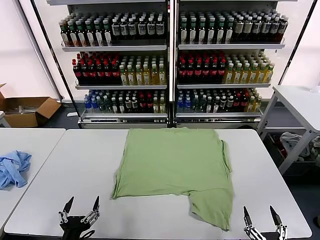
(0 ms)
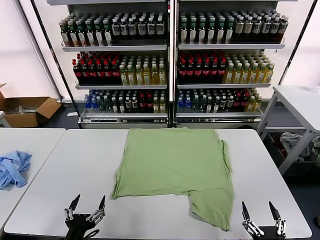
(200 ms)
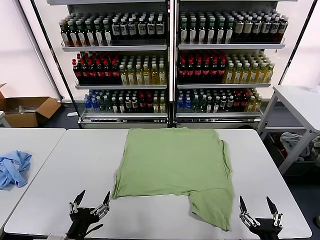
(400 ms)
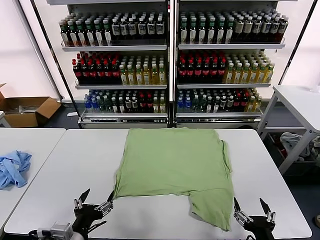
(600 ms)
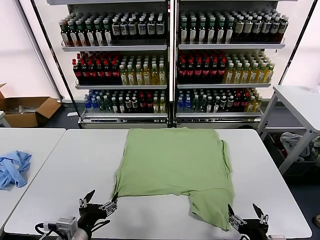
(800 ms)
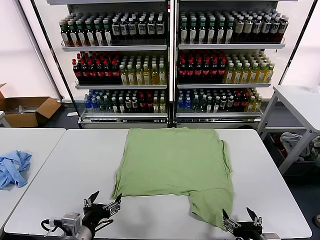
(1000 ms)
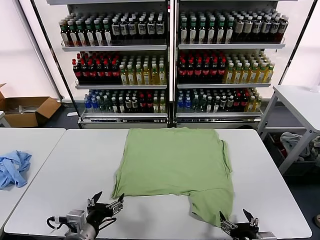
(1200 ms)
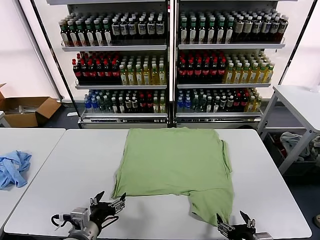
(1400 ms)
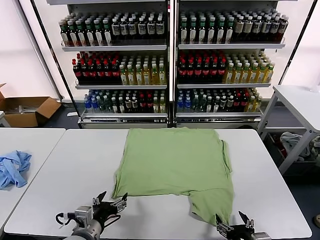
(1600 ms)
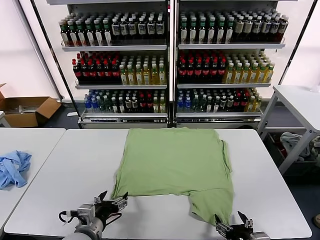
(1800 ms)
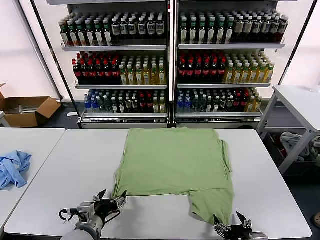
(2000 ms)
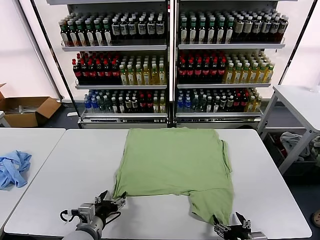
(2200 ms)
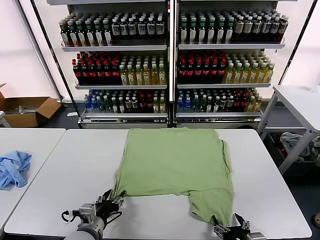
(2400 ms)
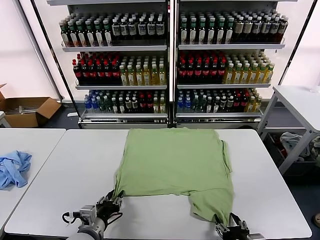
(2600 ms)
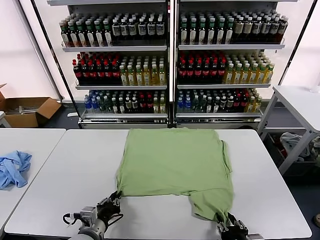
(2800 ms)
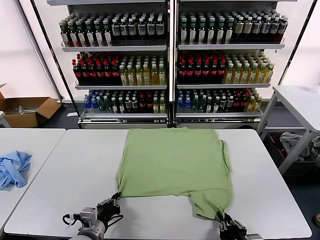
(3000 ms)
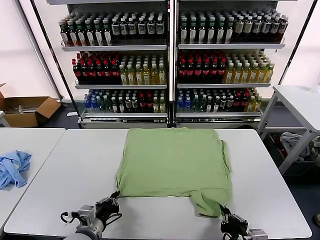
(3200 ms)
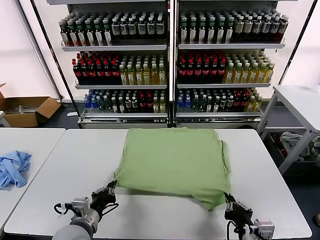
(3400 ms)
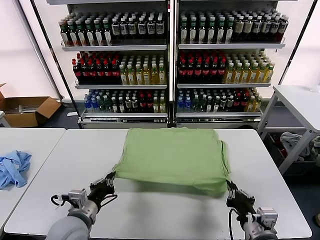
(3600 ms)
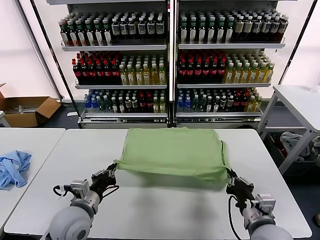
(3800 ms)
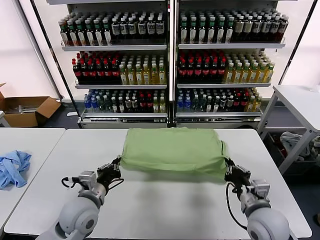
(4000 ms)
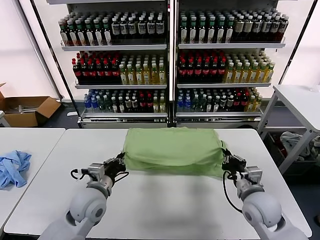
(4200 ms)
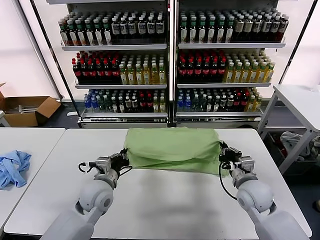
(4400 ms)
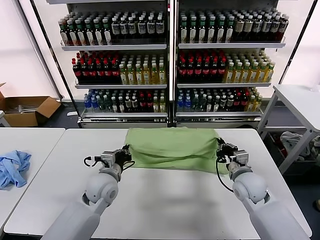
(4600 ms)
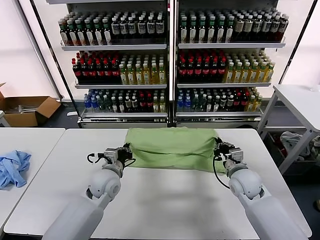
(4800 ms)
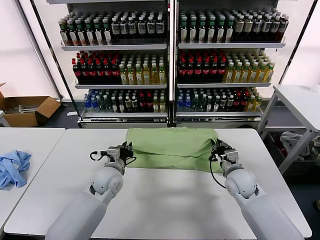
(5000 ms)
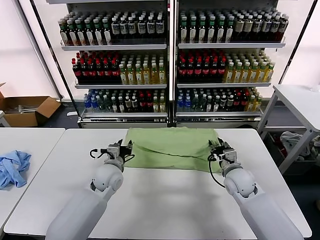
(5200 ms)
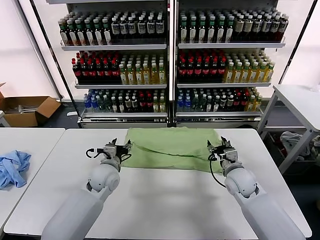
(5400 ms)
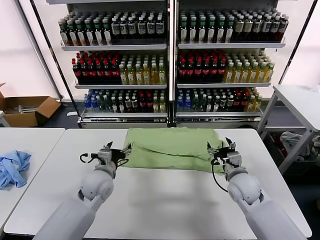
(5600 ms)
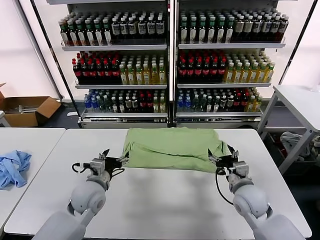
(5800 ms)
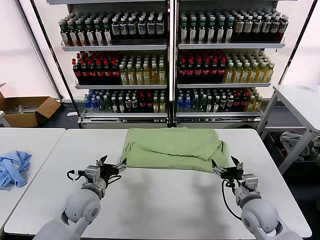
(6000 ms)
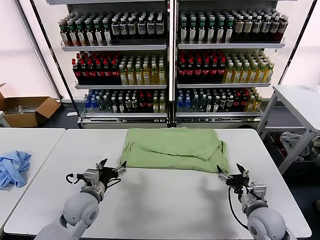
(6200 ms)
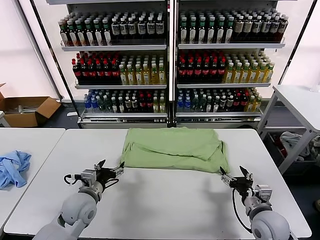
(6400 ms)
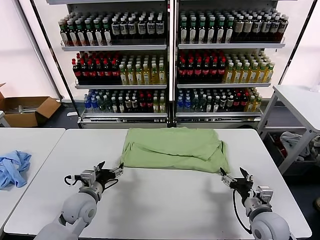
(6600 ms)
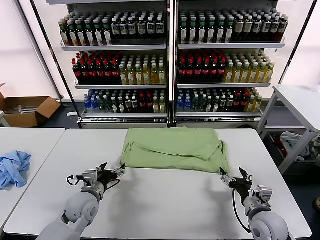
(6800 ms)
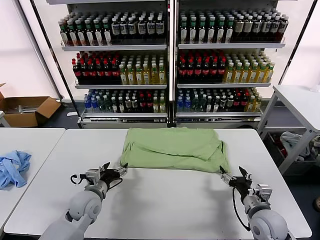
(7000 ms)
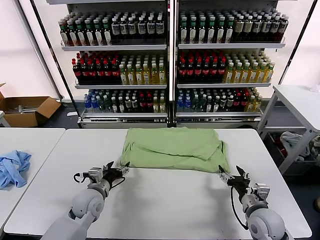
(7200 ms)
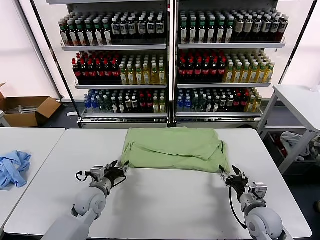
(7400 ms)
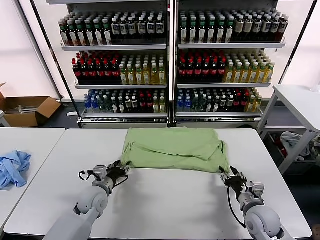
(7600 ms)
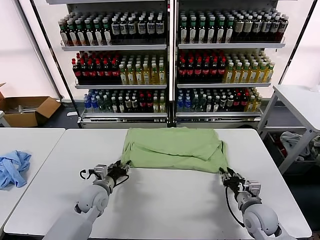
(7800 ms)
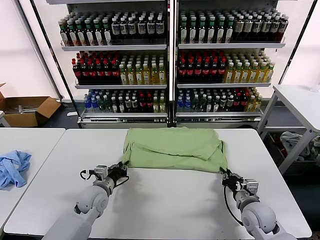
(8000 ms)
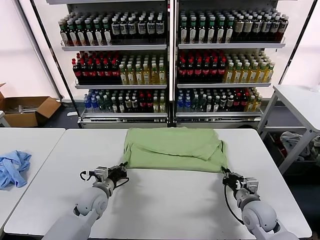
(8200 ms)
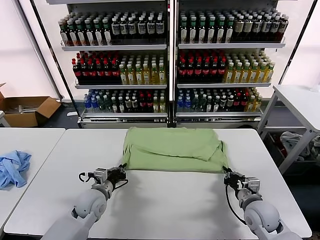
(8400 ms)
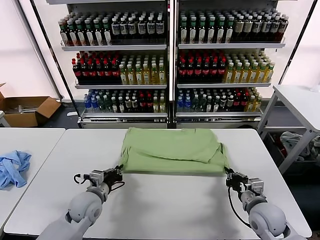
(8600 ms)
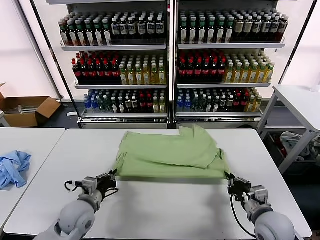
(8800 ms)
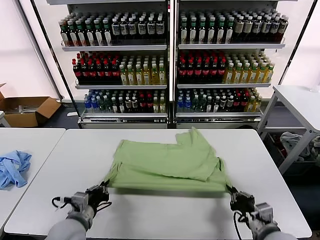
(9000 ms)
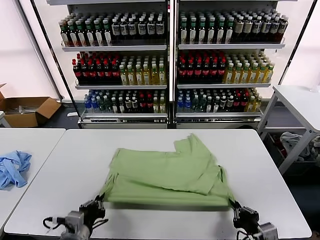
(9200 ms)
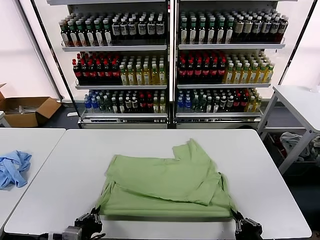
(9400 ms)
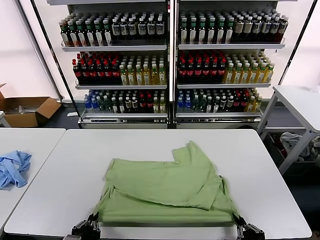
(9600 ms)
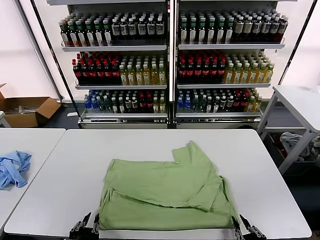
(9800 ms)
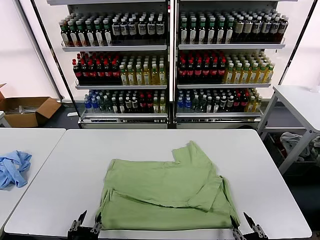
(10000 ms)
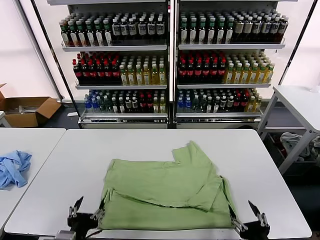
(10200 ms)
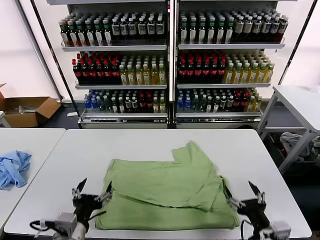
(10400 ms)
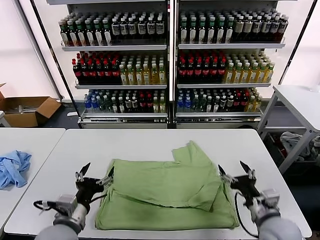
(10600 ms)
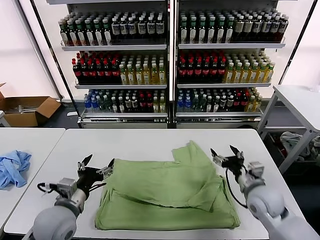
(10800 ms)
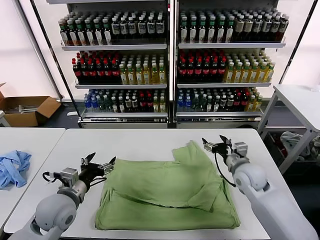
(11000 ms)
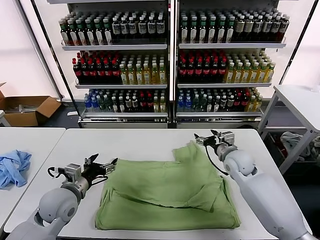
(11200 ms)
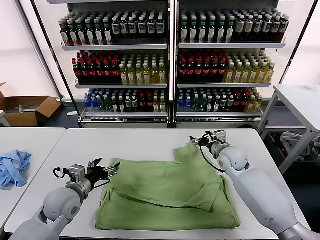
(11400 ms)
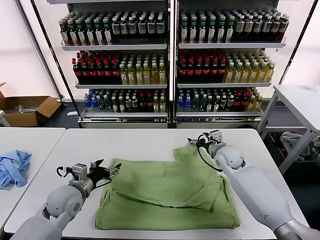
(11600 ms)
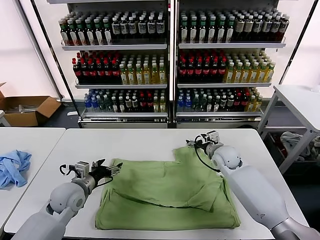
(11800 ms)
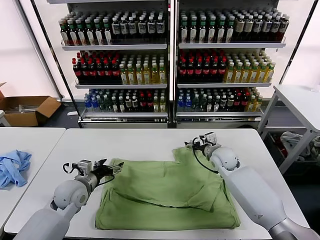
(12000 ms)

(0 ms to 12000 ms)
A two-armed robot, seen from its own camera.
Task of the whole recording: fold and organize the clothes.
Step, 0 ms - 3000 ms: use both grippers simultaneously to clamp the lower edge of the clothing fabric.
Step, 3200 ms - 5200 ms: use both grippers to drag the lower edge of the fabric forward and fold it over the upper edge.
Step, 5400 ms - 9600 ms: Drag the clothes downward with both gripper.
1600 ms - 3000 ms: The left gripper closes its fingers; the right gripper closes up.
3000 ms - 4400 ms: The left gripper is displaced forward and upward by roughly 15 cm. Meanwhile the right gripper moves forward, some 25 cm.
4400 ms - 6000 ms: The left gripper travels forward and back again, about 5 cm each way, and opens its fingers, while the right gripper moves backward, roughly 10 cm, and opens its fingers.
6000 ms - 7600 ms: The right gripper closes up. The left gripper is displaced downward by approximately 5 cm, and closes.
7600 ms - 9000 ms: The two grippers go about 15 cm backward. The left gripper closes. Meanwhile the right gripper closes its fingers.
9000 ms - 10400 ms: The left gripper heads backward and upward, covering about 10 cm, and opens up, while the right gripper travels backward and back again, approximately 10 cm each way, and opens its fingers.
10400 ms - 12000 ms: Both grippers move forward, approximately 25 cm.

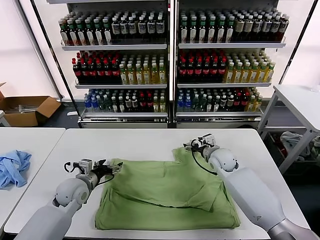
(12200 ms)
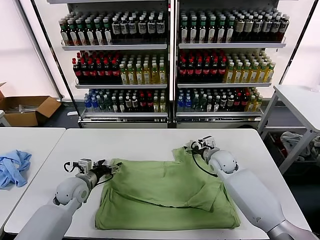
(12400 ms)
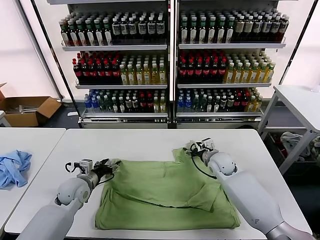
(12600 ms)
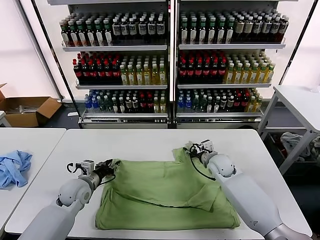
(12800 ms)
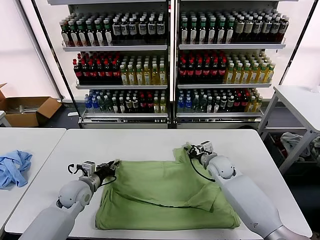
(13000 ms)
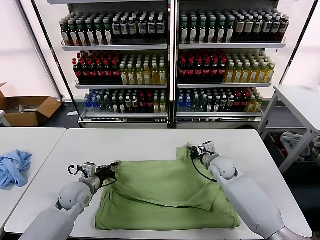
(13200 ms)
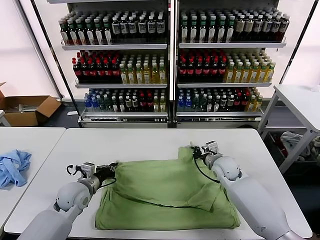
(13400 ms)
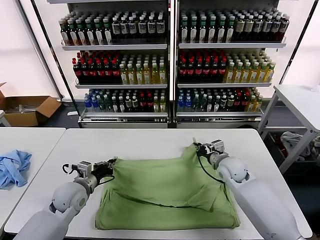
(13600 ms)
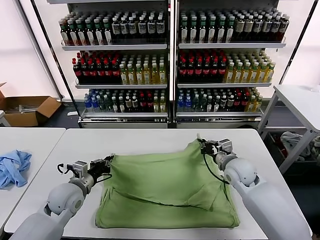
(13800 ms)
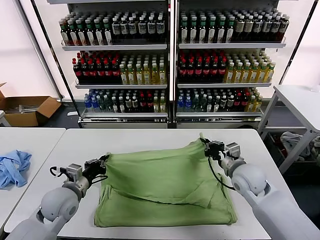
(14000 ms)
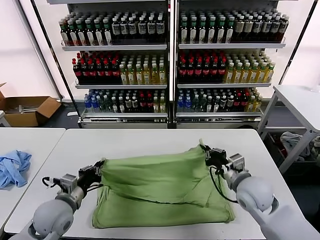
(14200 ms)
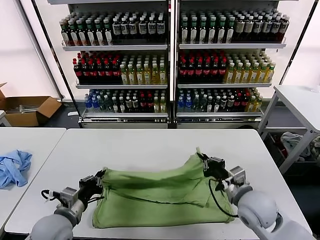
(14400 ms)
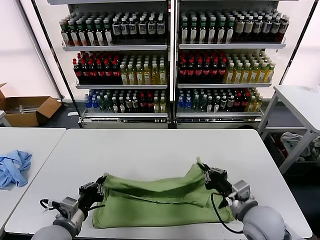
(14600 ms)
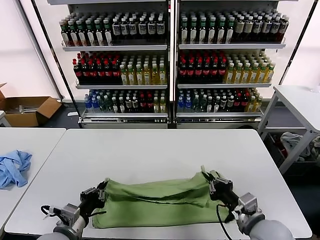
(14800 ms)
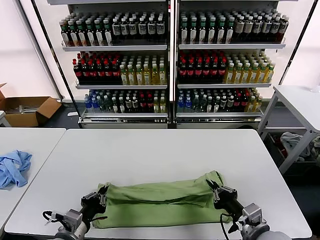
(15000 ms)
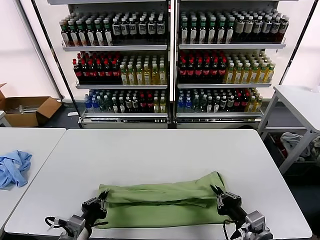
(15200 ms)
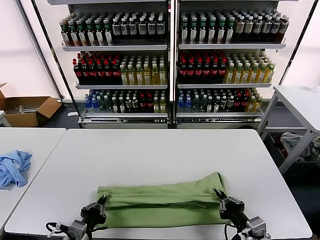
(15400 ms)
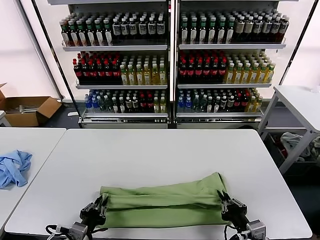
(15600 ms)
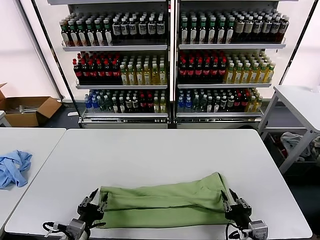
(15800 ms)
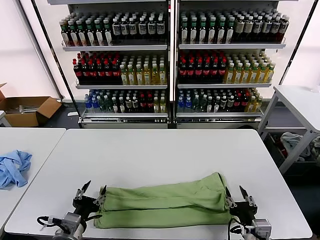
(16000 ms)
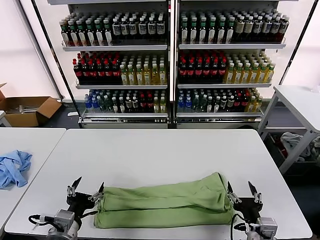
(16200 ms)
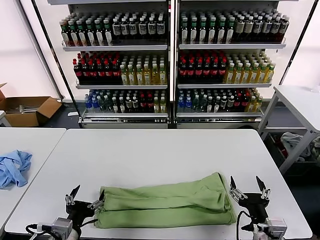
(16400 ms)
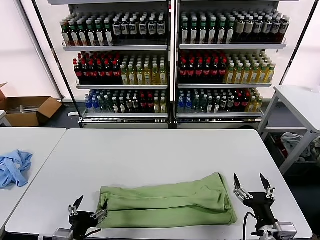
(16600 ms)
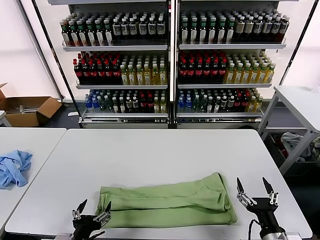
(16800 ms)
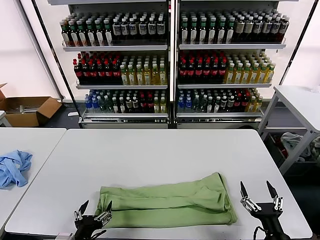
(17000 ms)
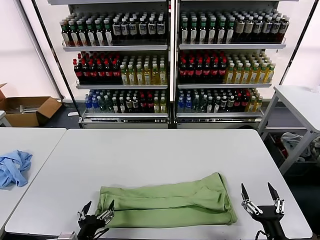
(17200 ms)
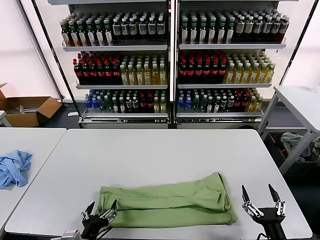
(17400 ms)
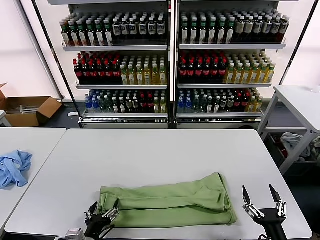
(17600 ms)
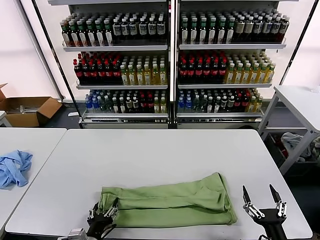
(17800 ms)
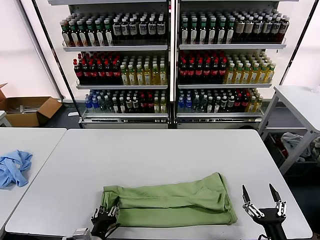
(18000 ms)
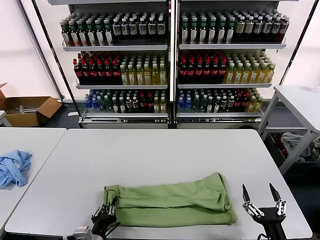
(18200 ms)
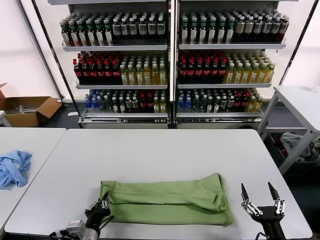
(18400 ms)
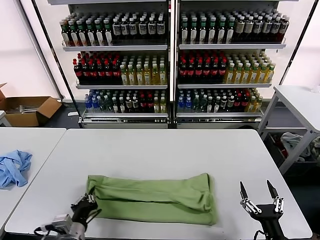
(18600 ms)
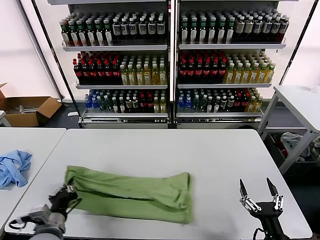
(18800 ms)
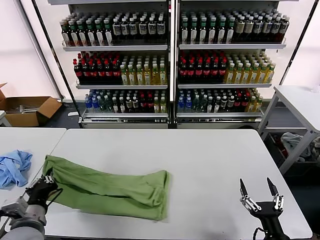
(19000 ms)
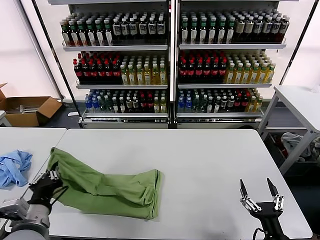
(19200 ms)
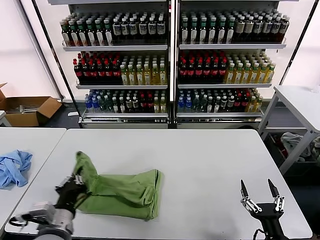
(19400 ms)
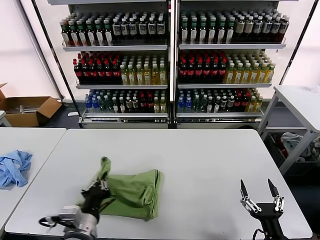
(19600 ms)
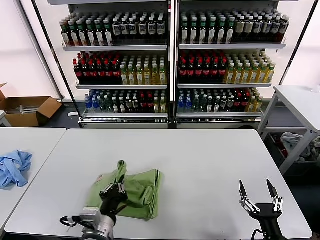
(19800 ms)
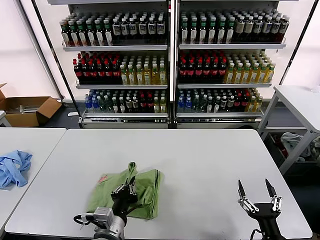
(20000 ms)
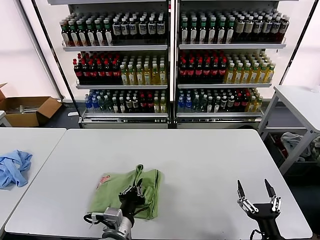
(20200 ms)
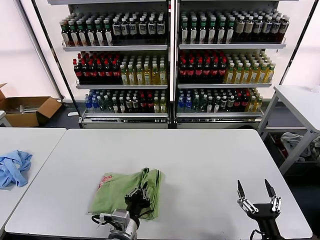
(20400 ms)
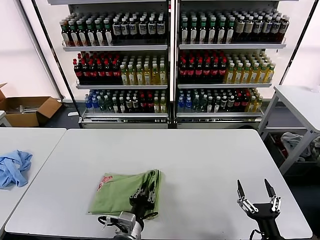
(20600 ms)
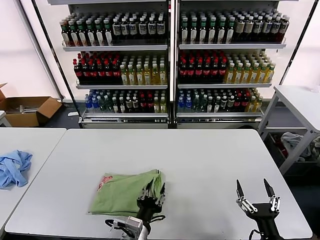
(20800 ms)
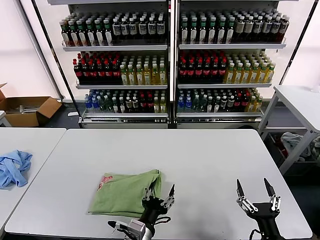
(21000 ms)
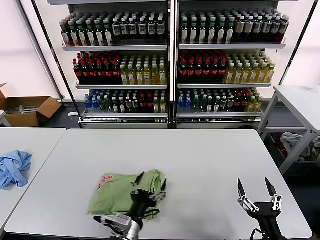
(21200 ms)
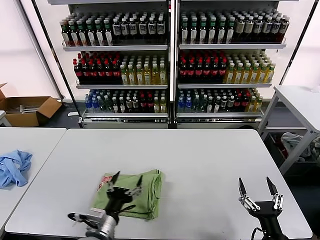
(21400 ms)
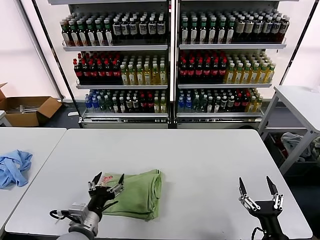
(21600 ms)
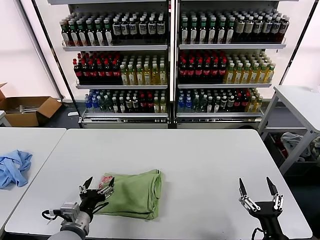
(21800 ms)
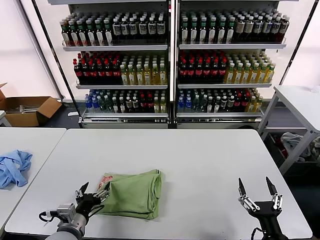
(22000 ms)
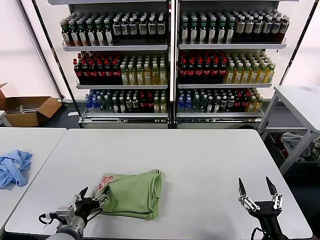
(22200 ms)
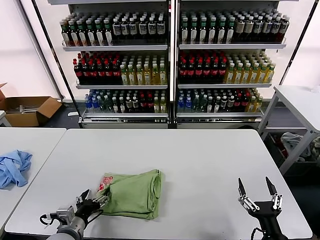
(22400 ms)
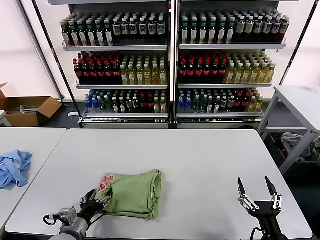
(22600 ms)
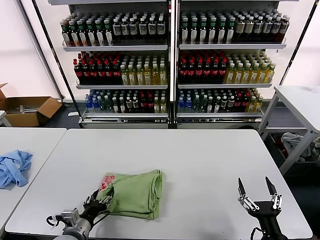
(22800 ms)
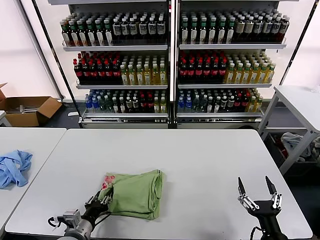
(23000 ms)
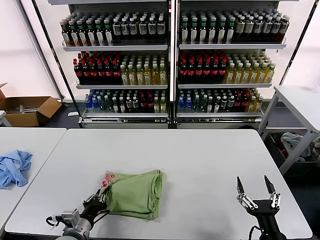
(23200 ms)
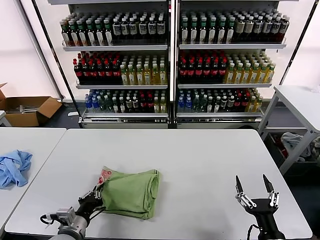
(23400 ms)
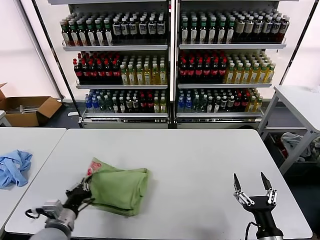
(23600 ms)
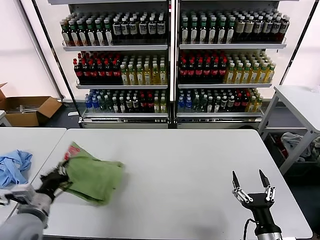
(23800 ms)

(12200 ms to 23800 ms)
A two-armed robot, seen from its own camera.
Task of the whole recording: fold and organize the clothes.
Step, 13400 ms - 15800 ms: use both grippers to drag the upper edge of the fabric backward and fold it over the lower edge.
Step, 16000 ms - 18400 ms: use the left gripper to clamp the left edge of the fabric.
Step, 18600 ms - 20600 ms: use the left gripper to drag the left edge of the fabric to the left and folds it over the right edge.
12200 ms - 13600 ms: The left gripper closes its fingers; the right gripper travels backward by about 5 cm, and closes.
13600 ms - 15000 ms: The two grippers go approximately 20 cm backward.
15000 ms - 16600 ms: The right gripper opens its fingers. Meanwhile the left gripper is displaced backward by about 5 cm, and opens its fingers.
16600 ms - 18000 ms: The right gripper ends up about 5 cm from where it was, while the left gripper travels downward by about 10 cm, and closes.
18000 ms - 19400 ms: The left gripper goes about 15 cm upward, and closes.
19400 ms - 21000 ms: The left gripper travels to the right and downward by about 20 cm, and opens its fingers.
21000 ms - 22400 ms: The left gripper goes some 20 cm to the left.
22400 ms - 23800 ms: The left gripper heads upward, covering approximately 10 cm, and closes up.
